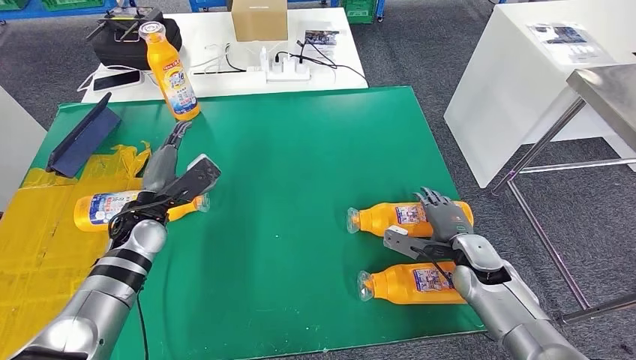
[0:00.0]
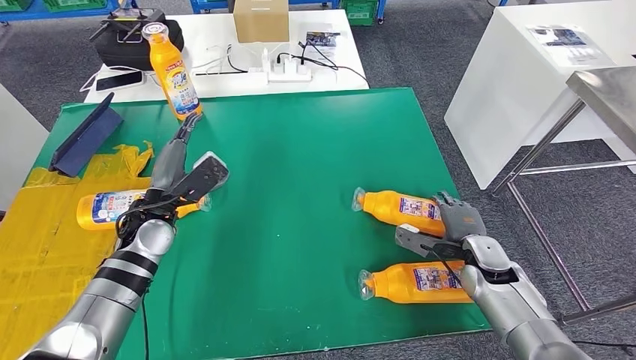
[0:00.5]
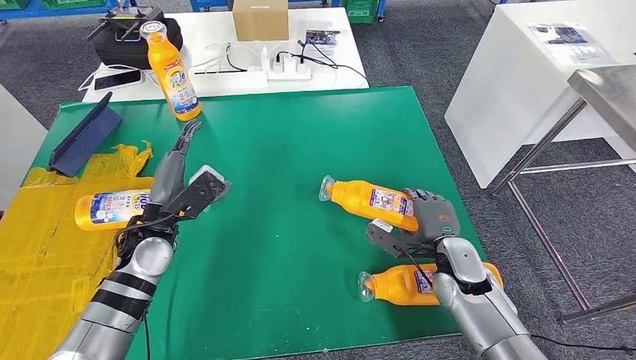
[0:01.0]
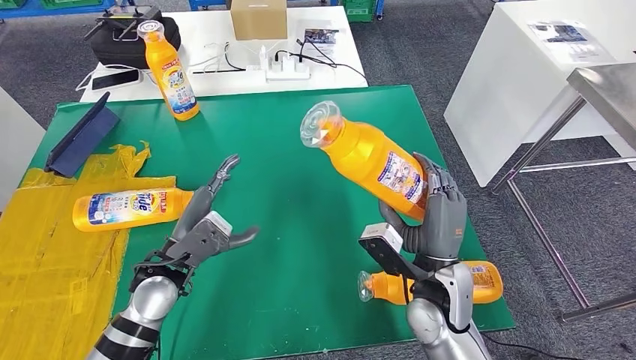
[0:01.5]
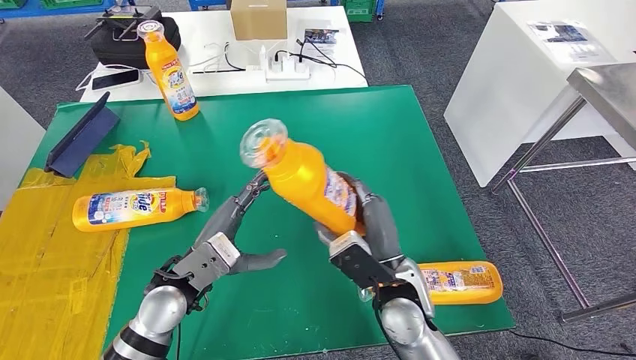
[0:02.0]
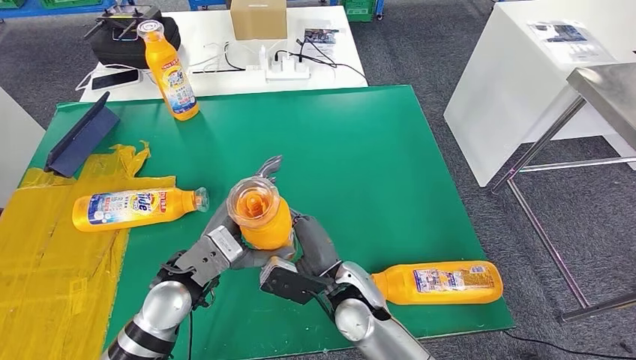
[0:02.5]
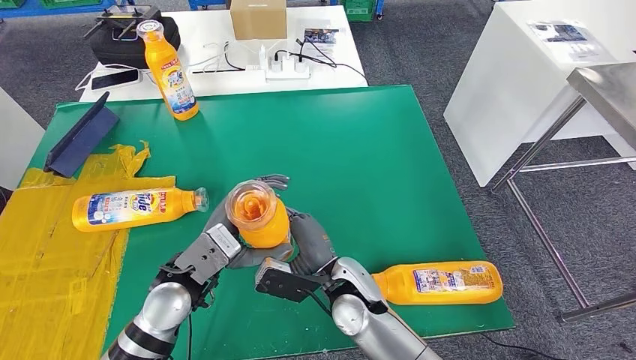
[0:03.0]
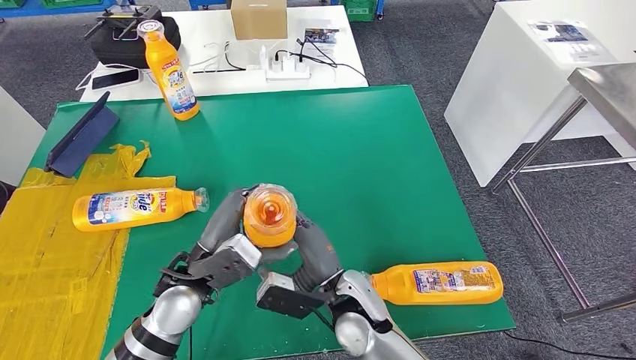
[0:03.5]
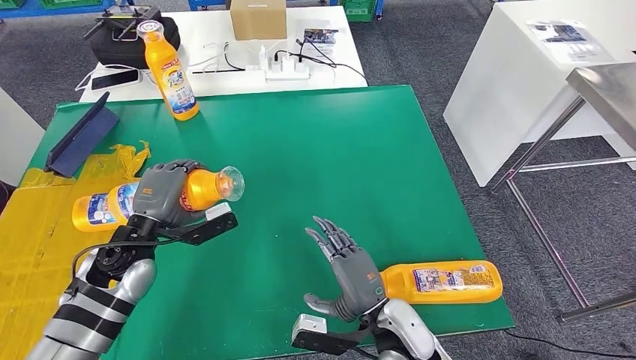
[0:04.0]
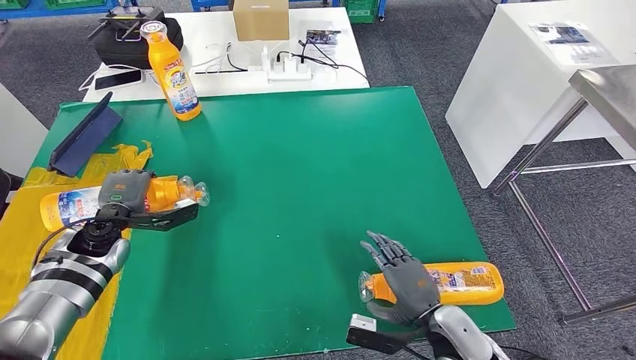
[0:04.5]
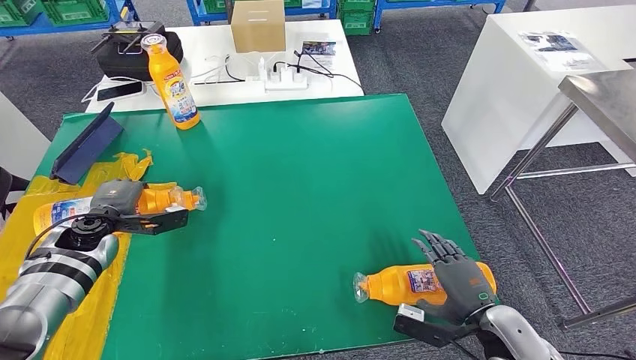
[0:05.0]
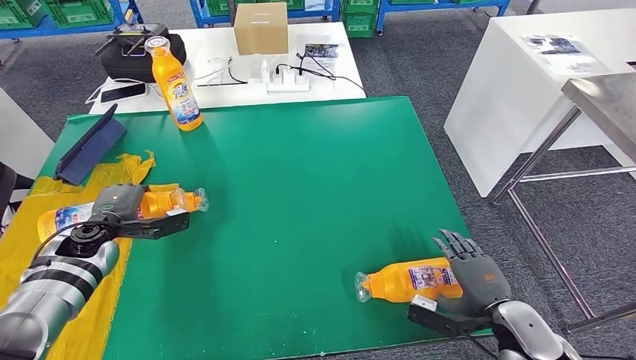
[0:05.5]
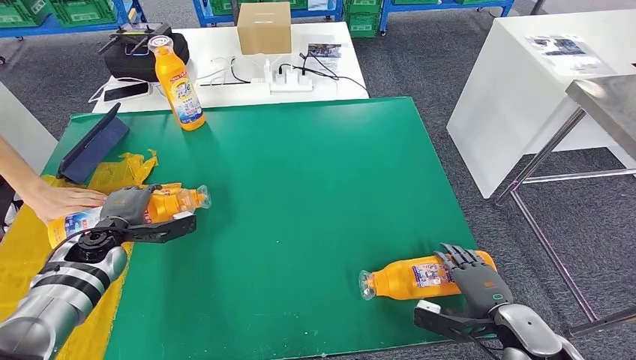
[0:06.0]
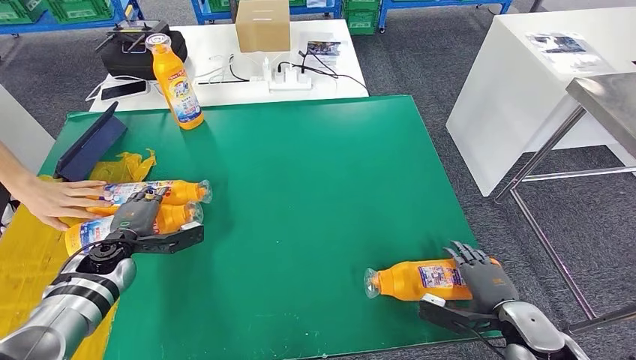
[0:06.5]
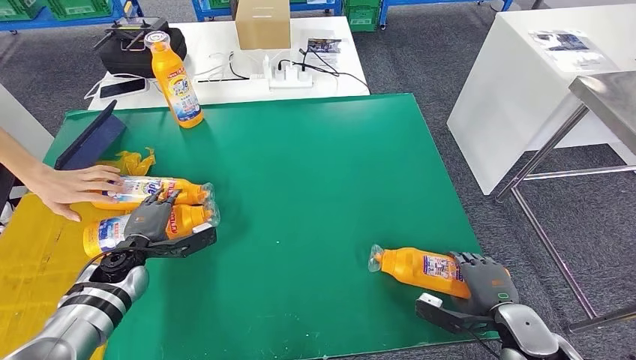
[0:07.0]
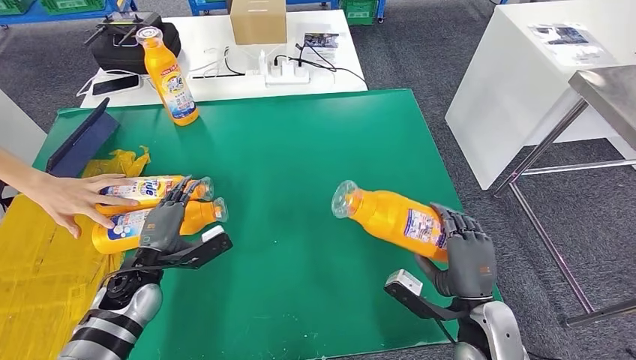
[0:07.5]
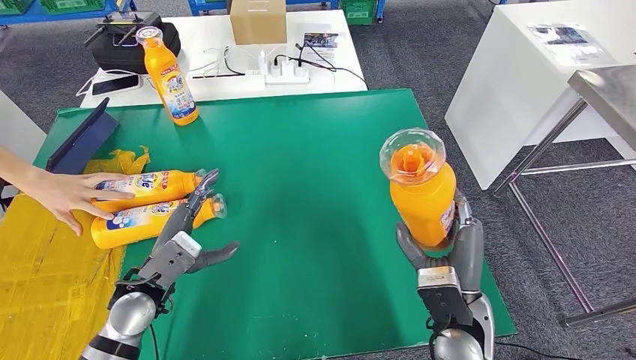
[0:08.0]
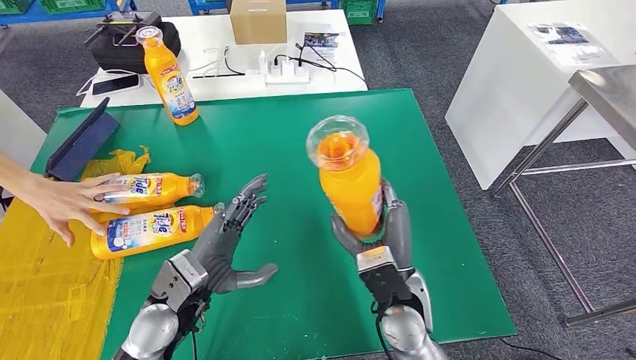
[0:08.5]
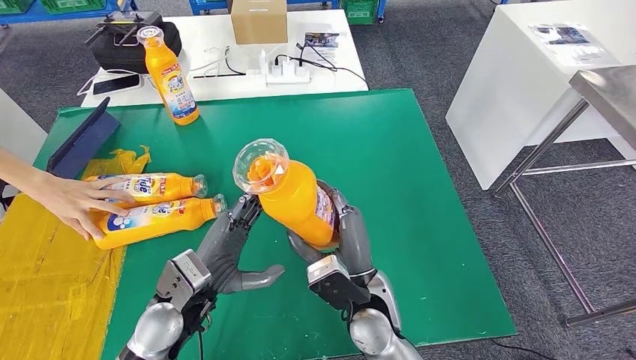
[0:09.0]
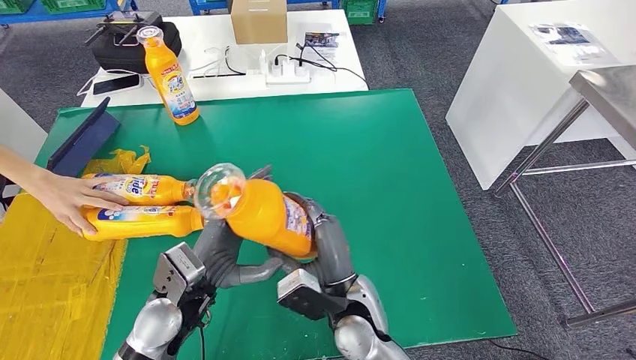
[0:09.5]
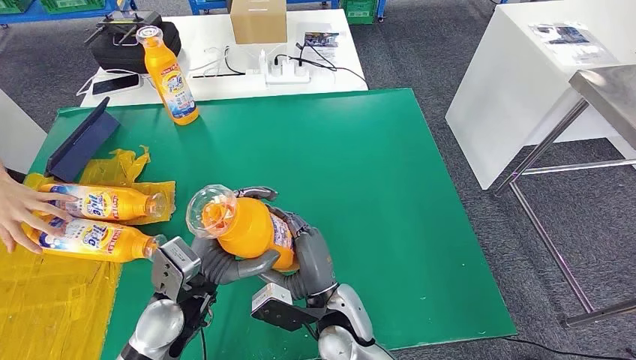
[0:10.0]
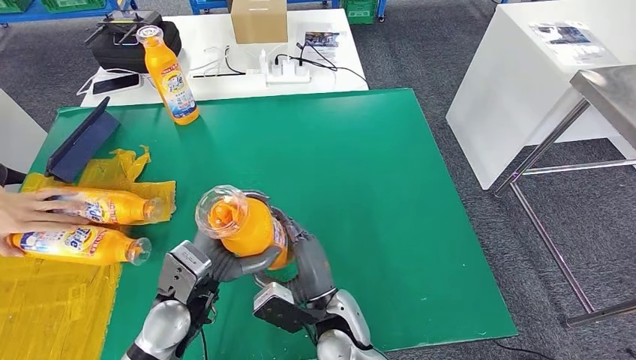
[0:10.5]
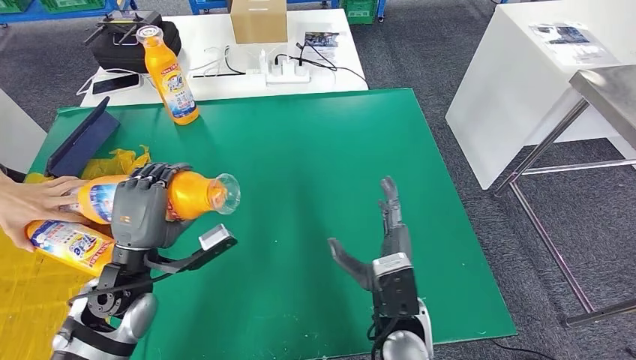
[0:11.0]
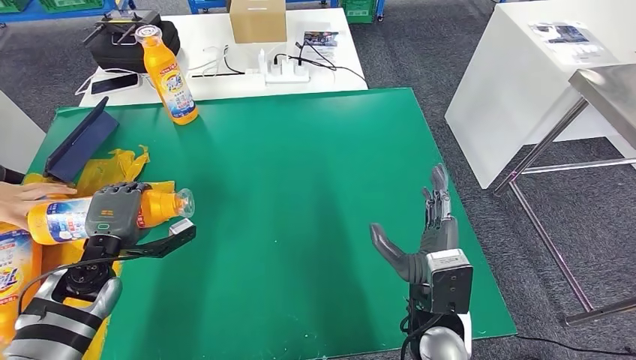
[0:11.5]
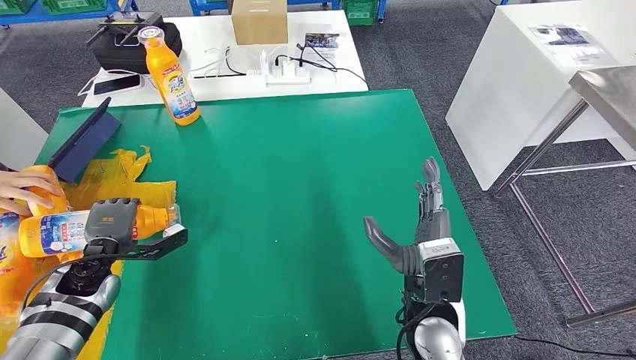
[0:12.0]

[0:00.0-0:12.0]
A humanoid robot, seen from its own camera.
Step, 0:00.0 to 0:02.5: Pick up the fast-moving consumer goods bottle from the table.
Step, 0:03.0 to 0:05.0: Flip the fast-moving consumer goods bottle to the front side.
Step, 0:05.5 to 0:09.0: Pick up the fast-moving consumer goods bottle from the table.
Step, 0:09.5 to 0:12.0: Flip the fast-moving consumer goods bottle to the front side.
0:02.0 to 0:04.0: The right hand heads backward, covering roughly 5 cm, and travels to the left and back again, about 10 cm each way; the left hand moves to the left and forward, roughly 10 cm.
